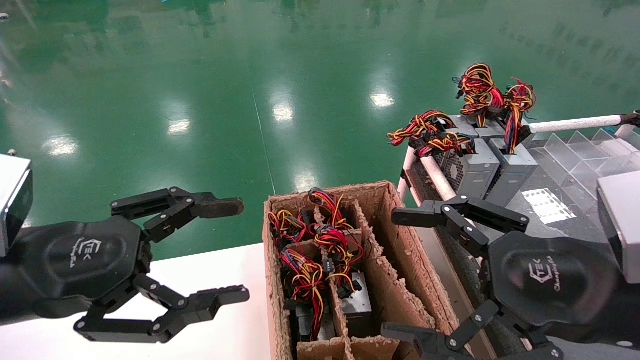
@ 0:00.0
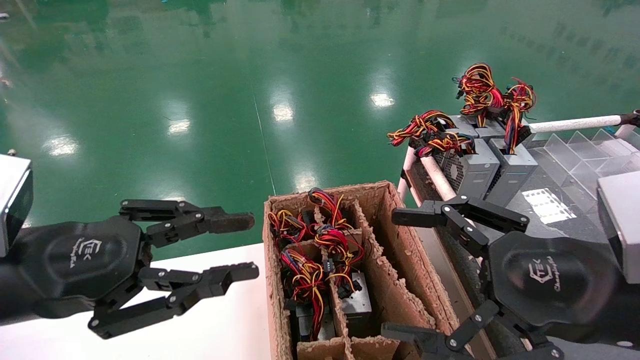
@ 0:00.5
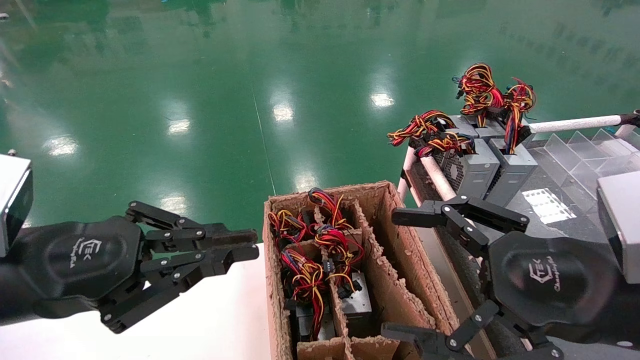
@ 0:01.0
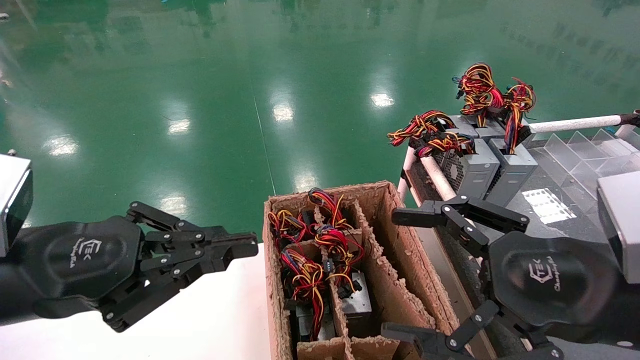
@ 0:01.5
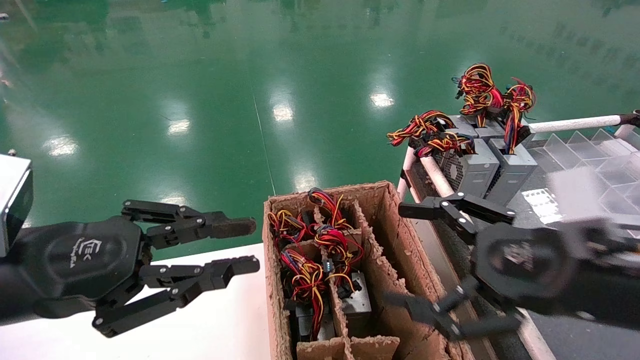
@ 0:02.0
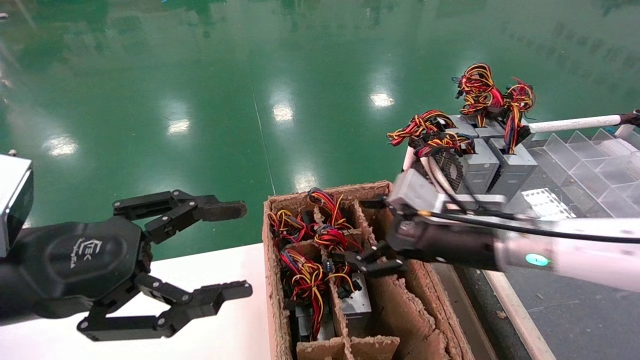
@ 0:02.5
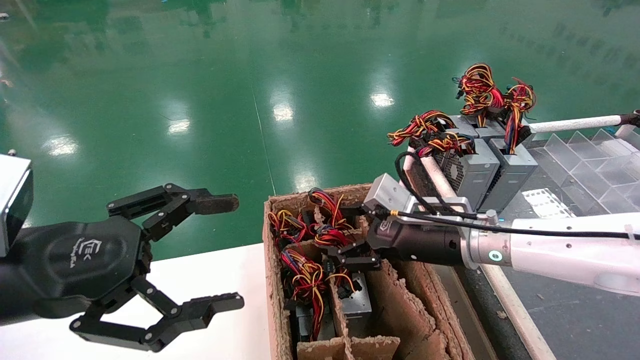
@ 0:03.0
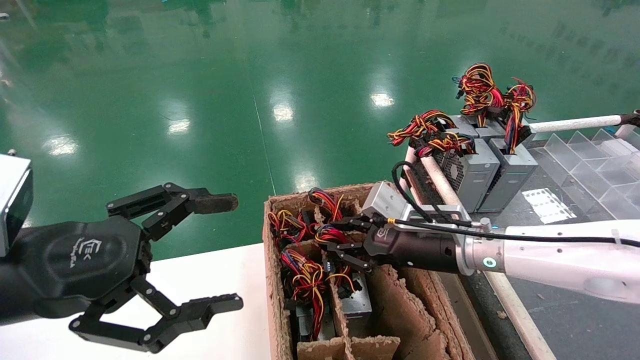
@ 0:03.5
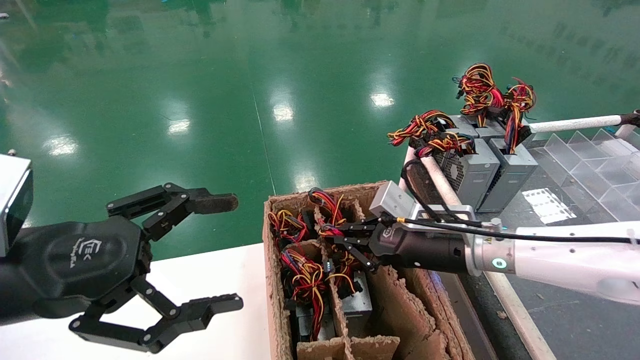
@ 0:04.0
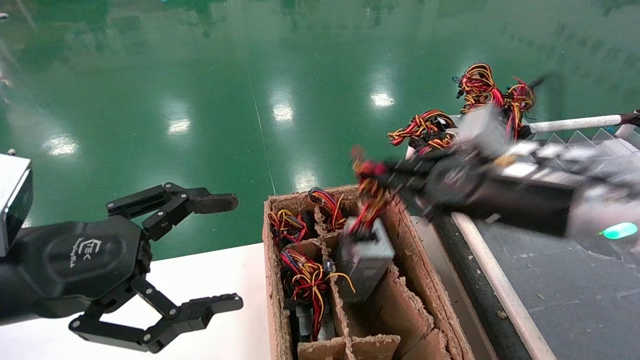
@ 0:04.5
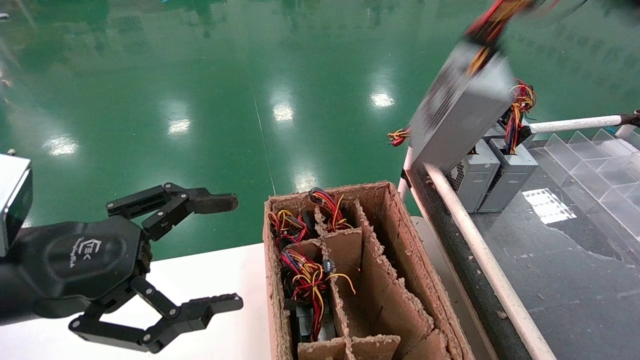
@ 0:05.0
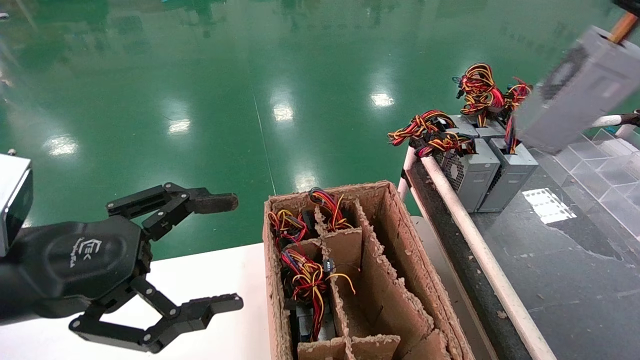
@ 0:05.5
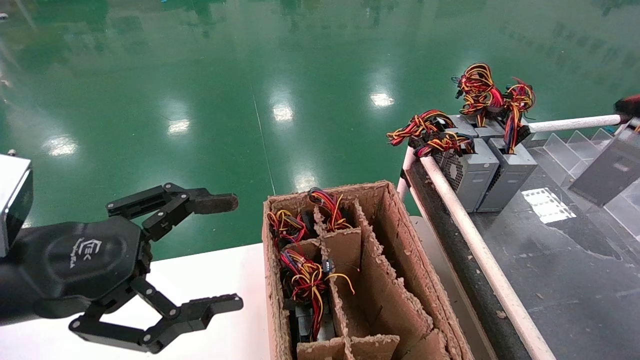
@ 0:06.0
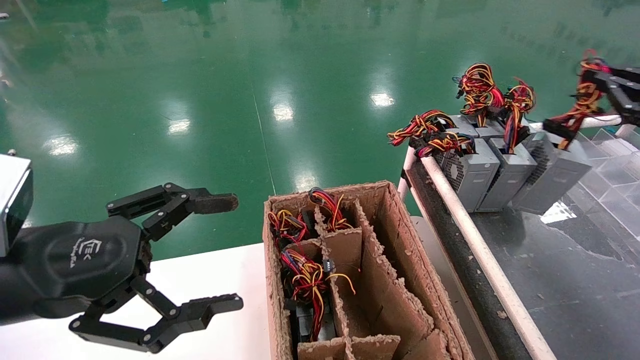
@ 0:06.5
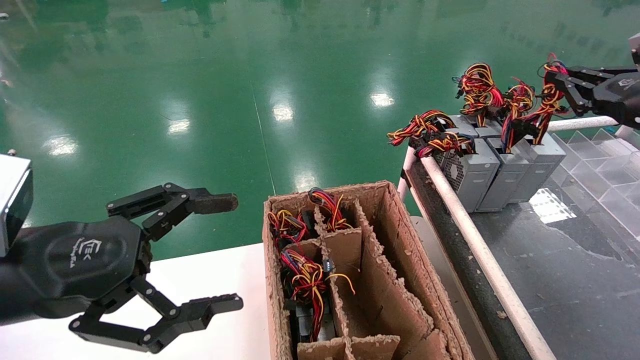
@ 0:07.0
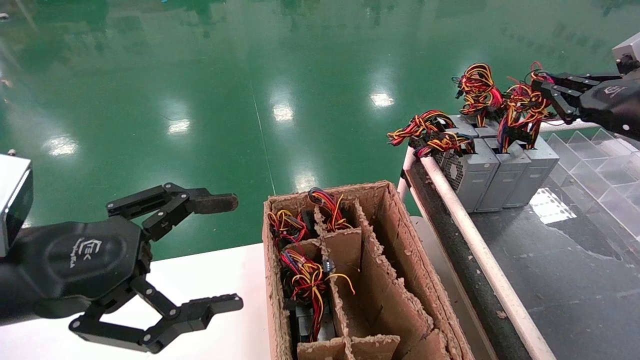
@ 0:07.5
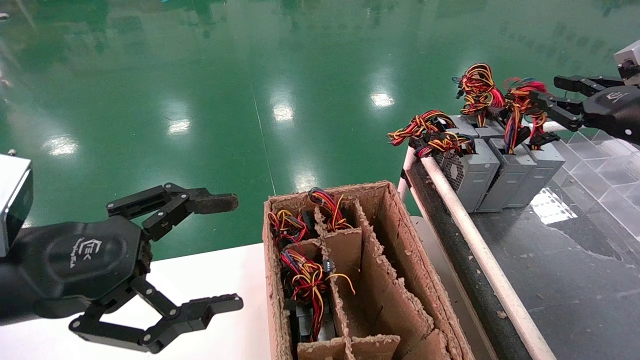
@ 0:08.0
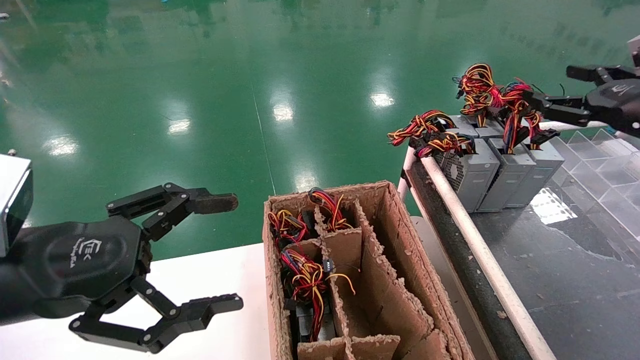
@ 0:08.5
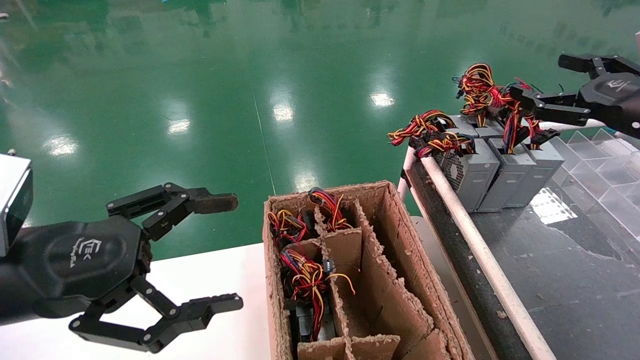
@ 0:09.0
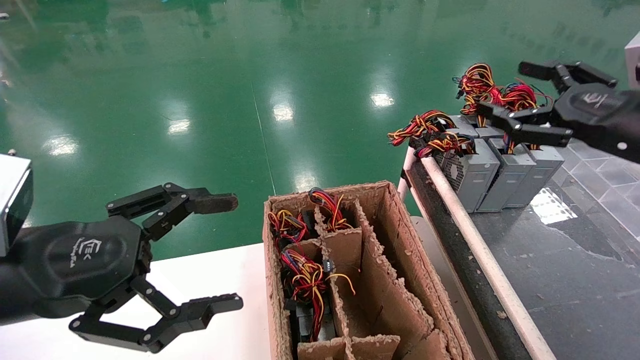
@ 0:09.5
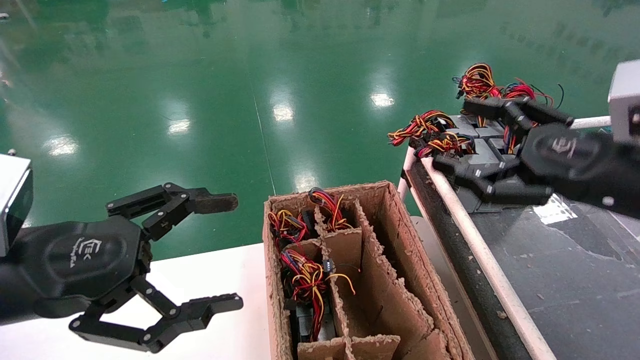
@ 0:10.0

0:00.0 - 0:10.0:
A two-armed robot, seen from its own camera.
Step, 0:01.5 - 0:04.0: Grab and lift the power supply from the large box.
Step, 0:04.5 - 0:07.5: Place the power supply on the operating table.
0:00.0 - 0:02.0: The left gripper closes up.
0:02.0 - 0:04.0: The right gripper moves forward and to the left, approximately 15 cm, and closes its fingers. The left gripper opens up.
0:04.0 - 0:06.0: The right gripper shifts about 40 cm to the right and upward.
0:06.0 - 0:08.0: The right gripper is displaced forward and to the left by some 15 cm.
0:08.0 - 0:10.0: The right gripper shifts about 15 cm to the left and backward, and opens up.
